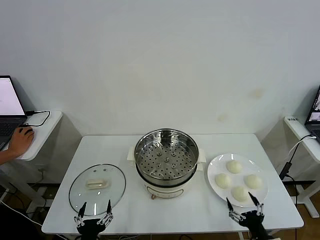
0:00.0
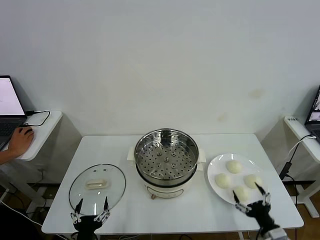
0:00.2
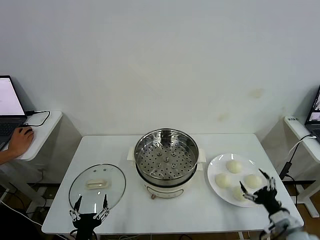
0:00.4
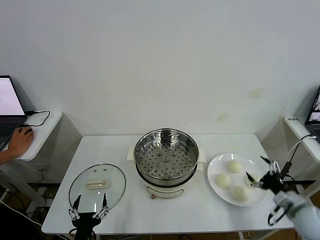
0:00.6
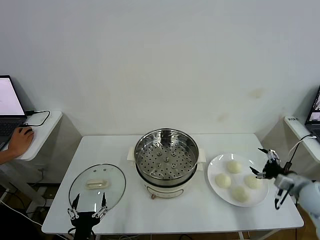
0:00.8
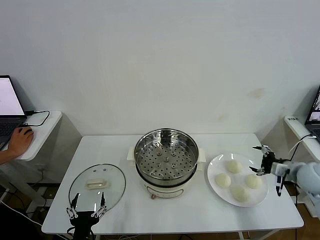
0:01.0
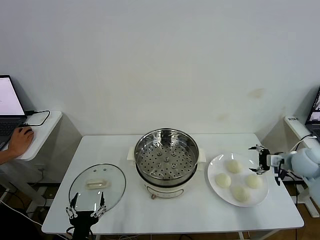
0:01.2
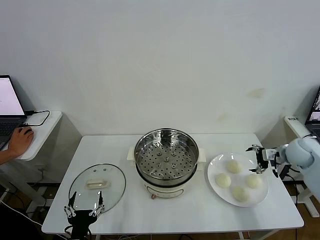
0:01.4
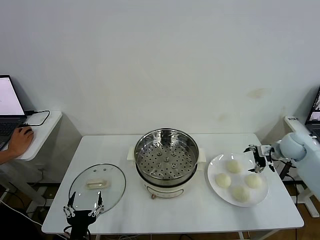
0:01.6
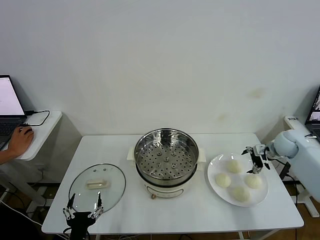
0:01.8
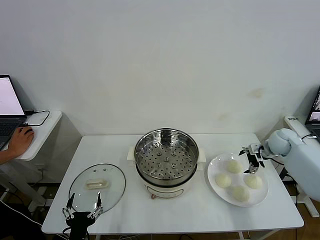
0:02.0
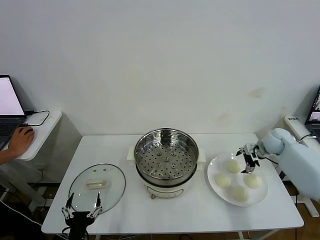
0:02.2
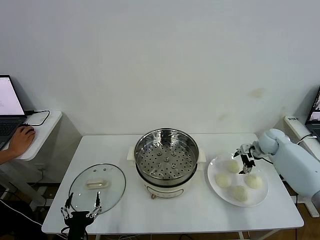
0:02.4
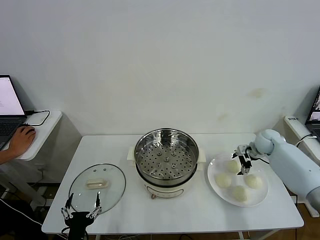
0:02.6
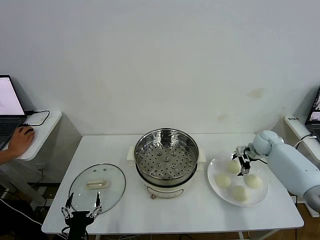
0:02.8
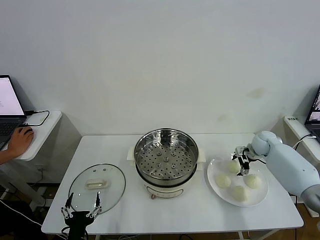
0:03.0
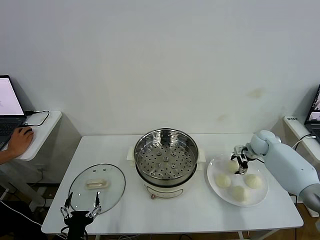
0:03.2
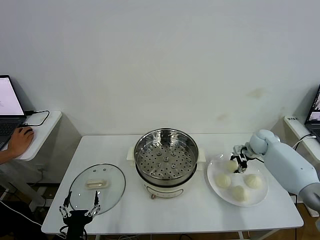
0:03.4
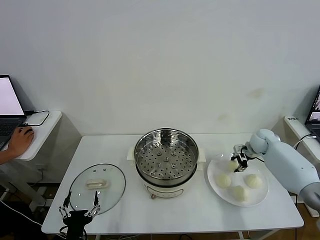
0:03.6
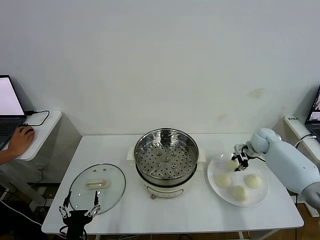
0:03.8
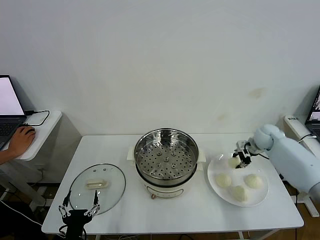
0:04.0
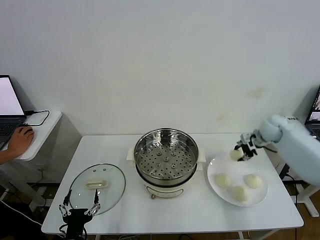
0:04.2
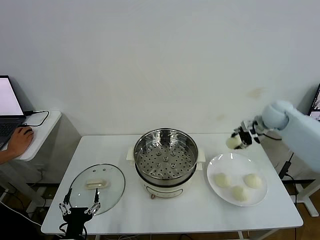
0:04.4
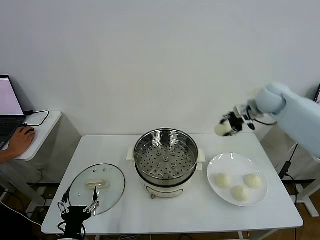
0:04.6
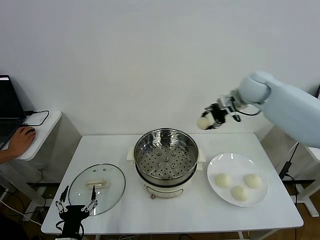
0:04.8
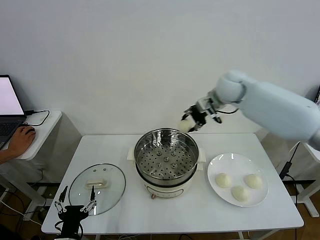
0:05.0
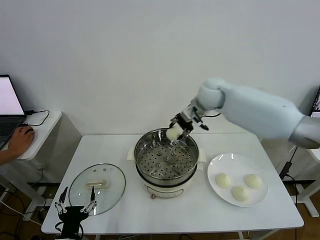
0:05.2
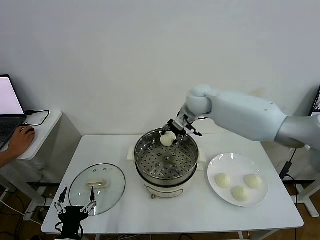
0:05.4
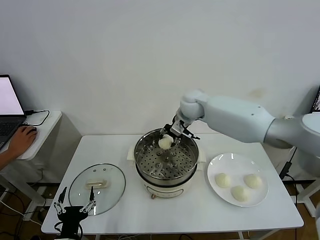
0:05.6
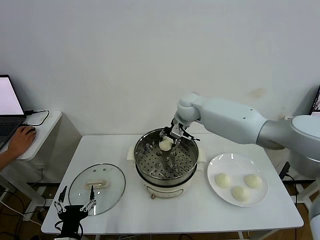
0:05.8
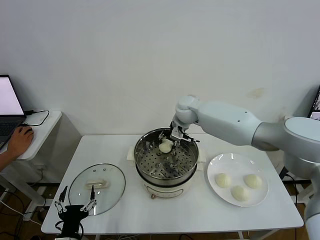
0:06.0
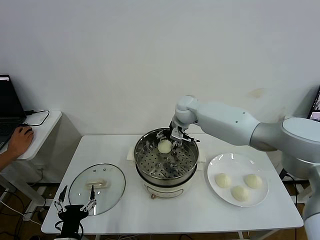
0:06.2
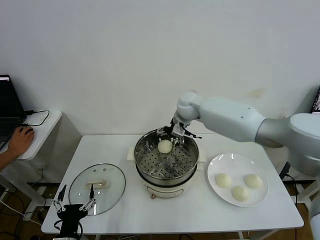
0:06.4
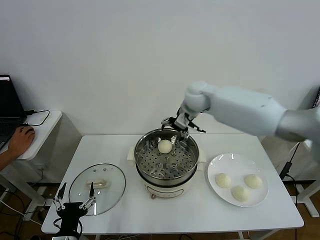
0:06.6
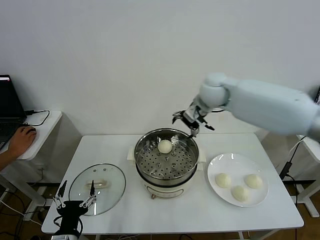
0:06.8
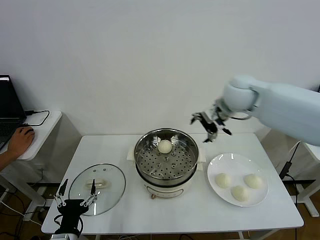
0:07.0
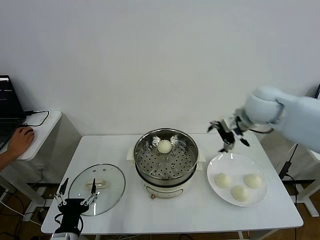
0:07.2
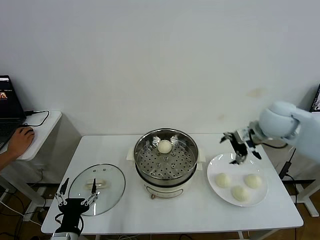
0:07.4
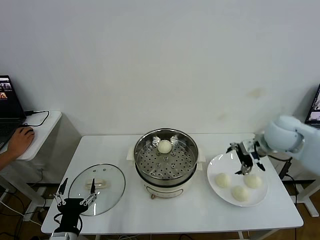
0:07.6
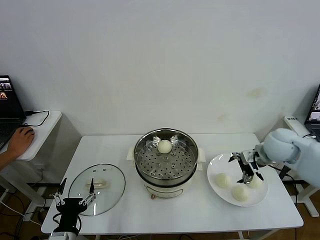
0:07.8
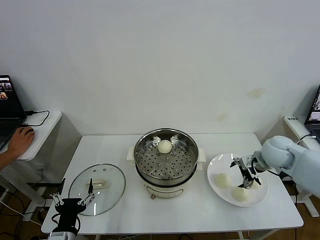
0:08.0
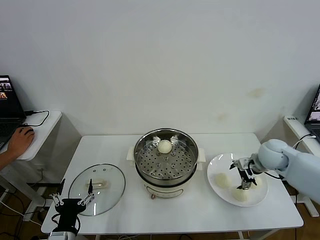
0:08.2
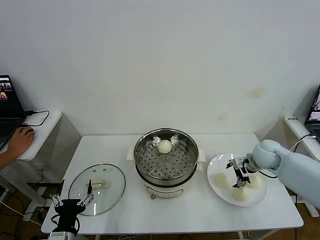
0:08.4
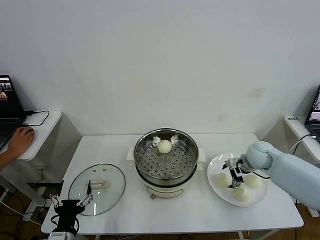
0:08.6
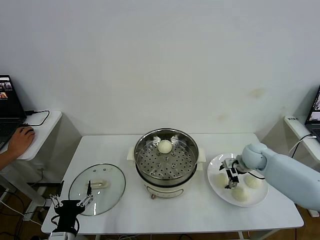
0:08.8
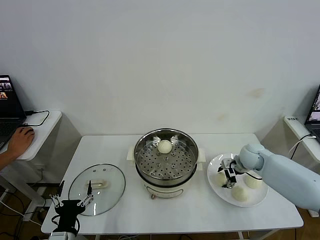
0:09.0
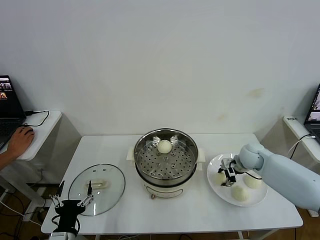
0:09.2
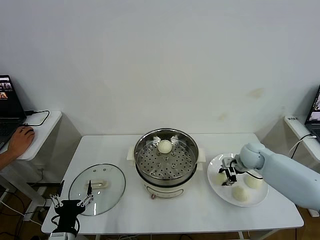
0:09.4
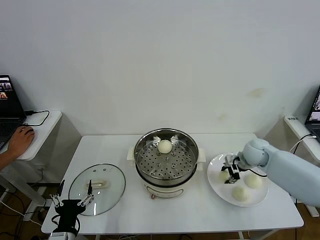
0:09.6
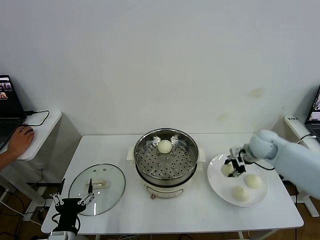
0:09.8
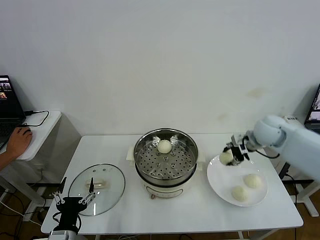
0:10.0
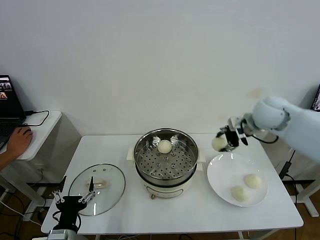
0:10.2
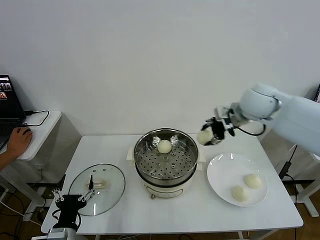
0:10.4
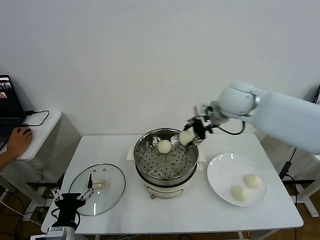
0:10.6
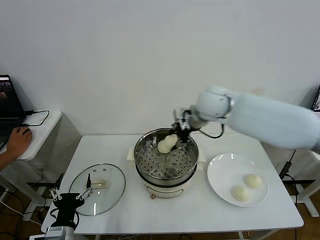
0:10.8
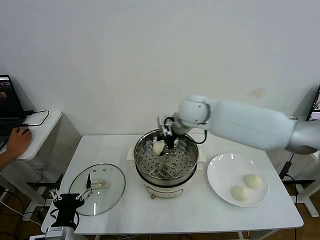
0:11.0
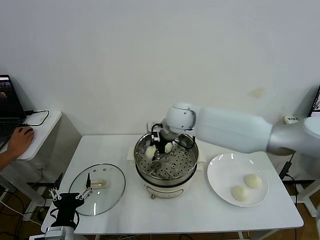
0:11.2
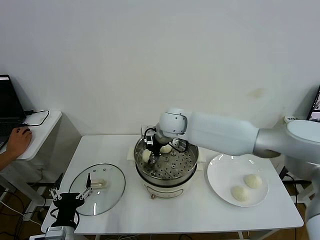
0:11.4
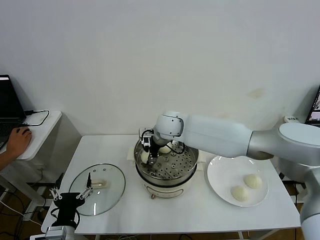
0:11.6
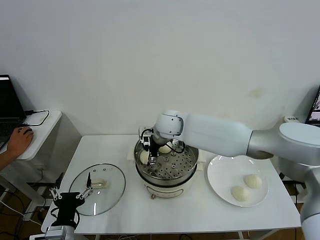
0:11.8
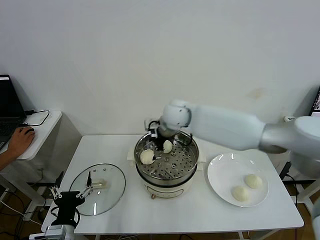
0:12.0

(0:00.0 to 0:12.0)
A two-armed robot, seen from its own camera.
Step, 0:00.0 - 0:03.4: Grasp the baozi in the plate with right gripper.
Step, 0:03.6 - 0:06.4: Place the baozi on the steamer with right gripper.
Step, 0:06.6 - 0:09.2: Grasp the baozi in the plate with right gripper.
Step, 0:09.4 - 0:11.8: Place the baozi on the steamer with right gripper.
0:01.6 - 0:03.0: The right gripper goes approximately 10 cm downward and forward.
0:03.0 - 0:04.4: The right gripper is displaced upward by some 20 cm, and closes up.
0:04.4 - 0:06.0: The right gripper is displaced to the left by some 30 cm.
0:06.0 - 0:07.6: The right gripper shifts about 30 cm to the right and backward, and opens up.
0:07.6 - 0:09.0: The right gripper goes some 15 cm downward, and closes up.
0:09.0 - 0:10.4: The right gripper heads upward, covering roughly 25 cm, and closes.
0:10.4 - 0:12.0: The right gripper moves to the left, some 20 cm, and opens up.

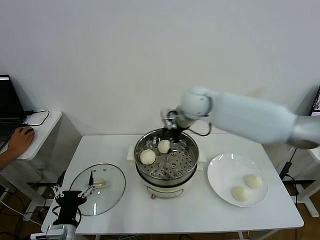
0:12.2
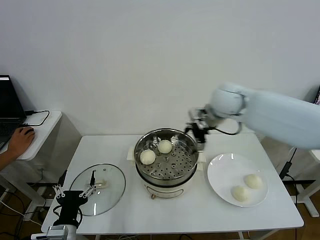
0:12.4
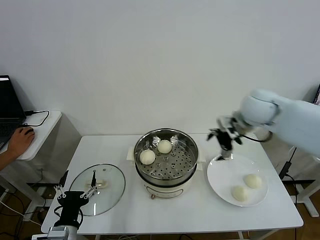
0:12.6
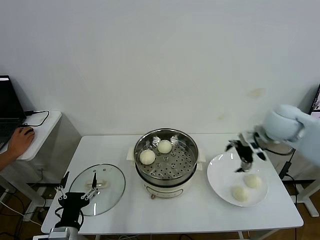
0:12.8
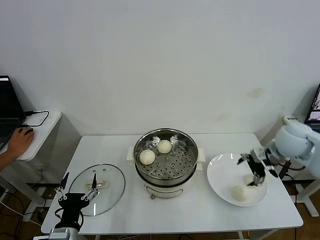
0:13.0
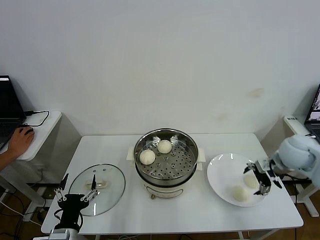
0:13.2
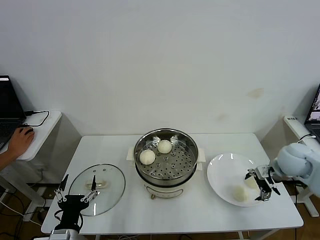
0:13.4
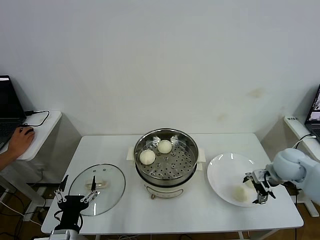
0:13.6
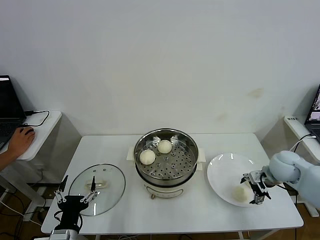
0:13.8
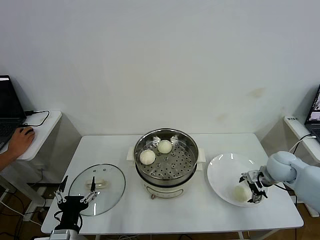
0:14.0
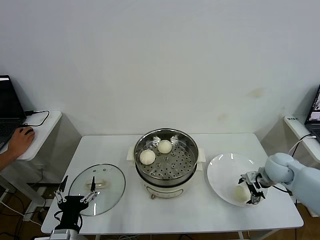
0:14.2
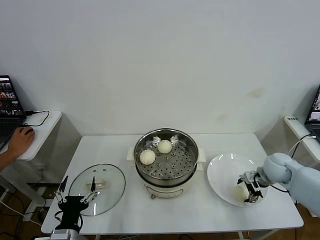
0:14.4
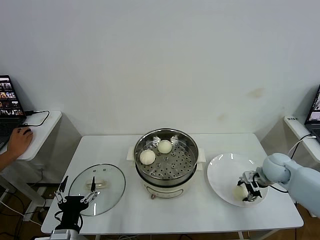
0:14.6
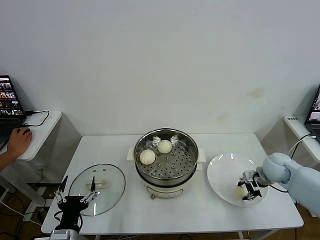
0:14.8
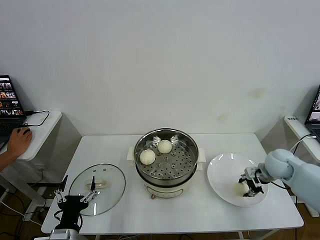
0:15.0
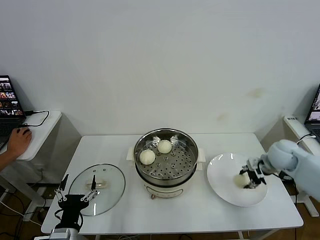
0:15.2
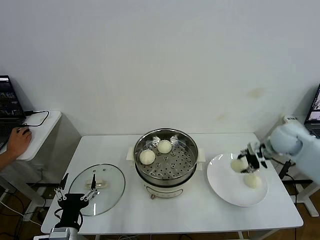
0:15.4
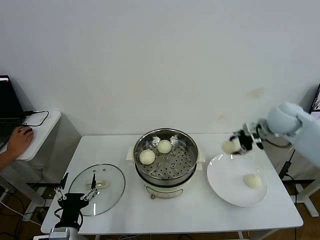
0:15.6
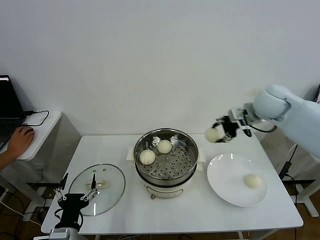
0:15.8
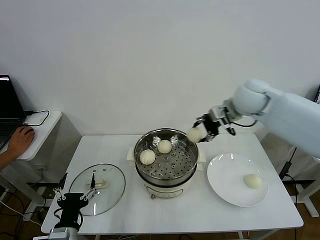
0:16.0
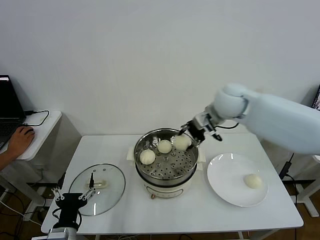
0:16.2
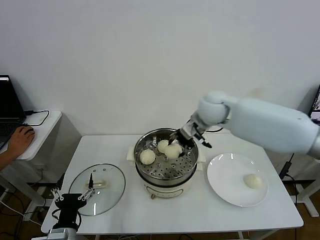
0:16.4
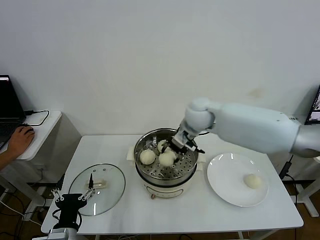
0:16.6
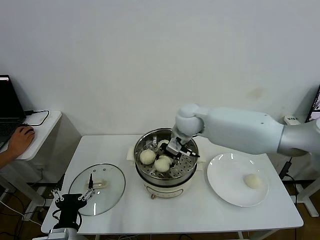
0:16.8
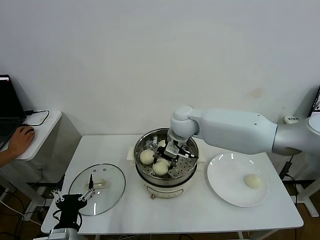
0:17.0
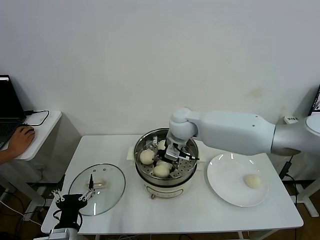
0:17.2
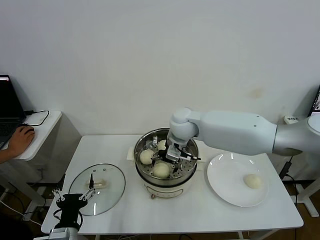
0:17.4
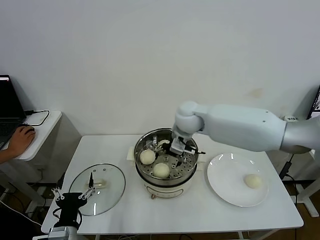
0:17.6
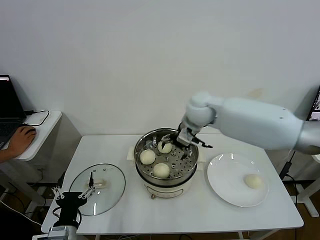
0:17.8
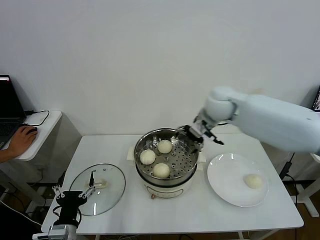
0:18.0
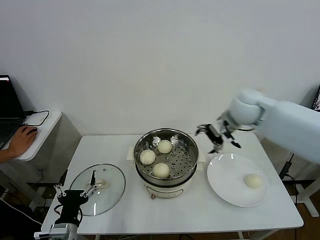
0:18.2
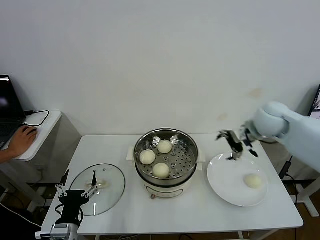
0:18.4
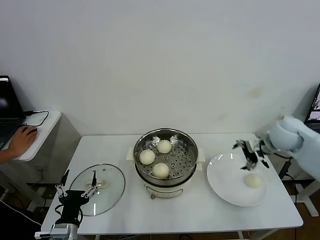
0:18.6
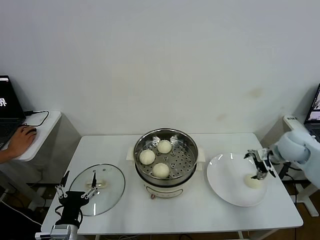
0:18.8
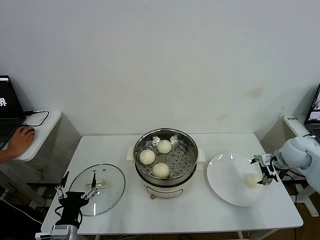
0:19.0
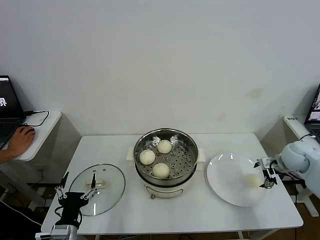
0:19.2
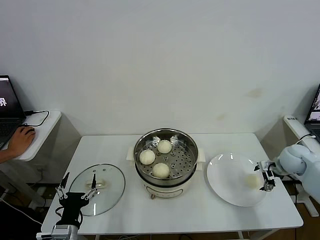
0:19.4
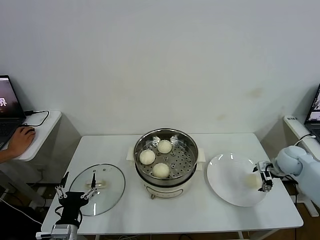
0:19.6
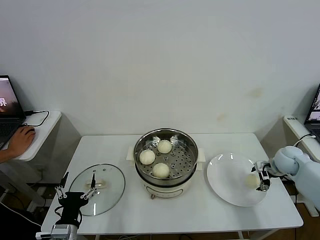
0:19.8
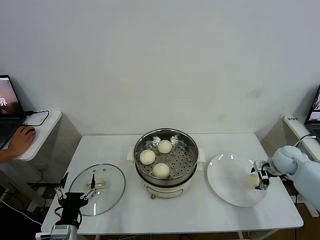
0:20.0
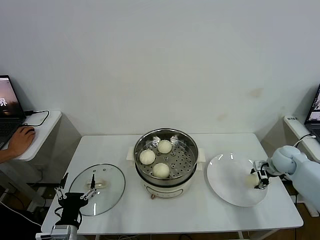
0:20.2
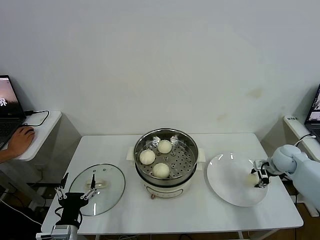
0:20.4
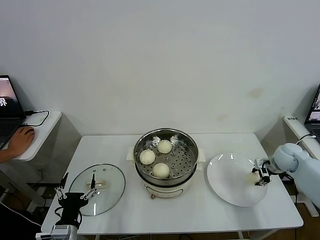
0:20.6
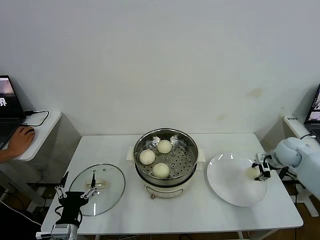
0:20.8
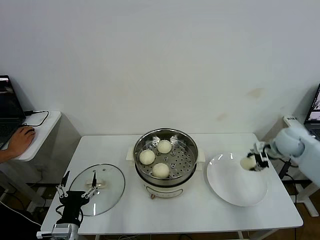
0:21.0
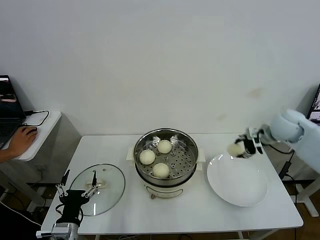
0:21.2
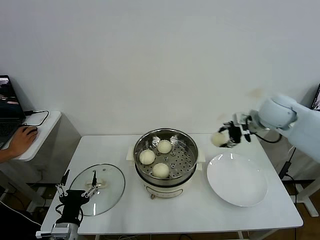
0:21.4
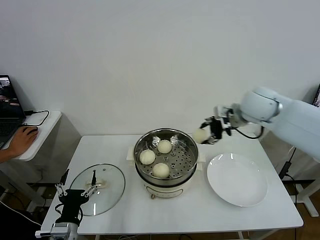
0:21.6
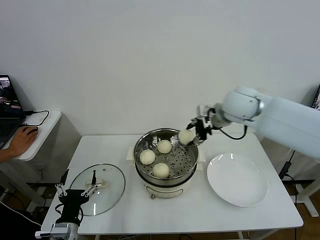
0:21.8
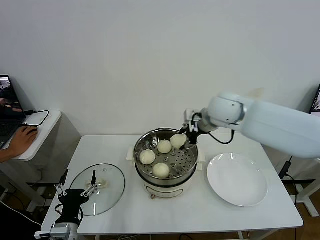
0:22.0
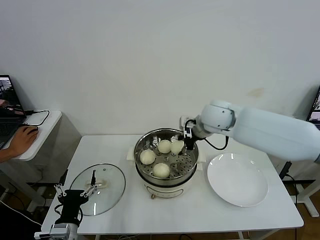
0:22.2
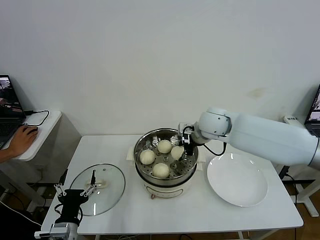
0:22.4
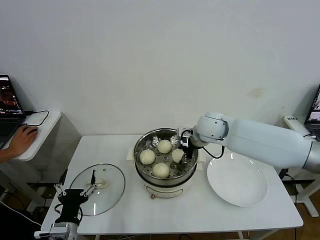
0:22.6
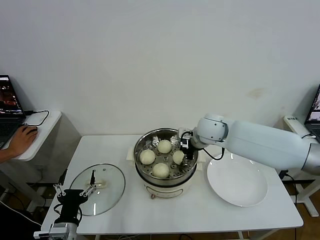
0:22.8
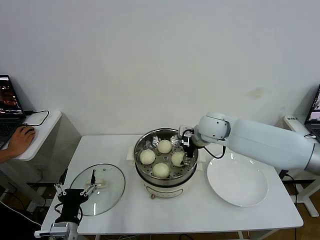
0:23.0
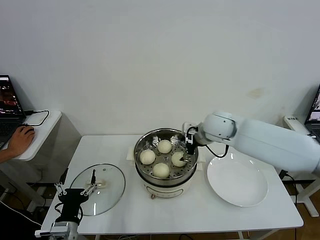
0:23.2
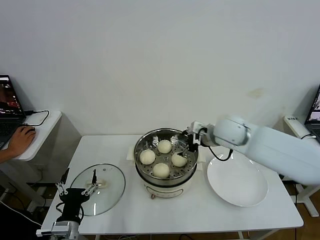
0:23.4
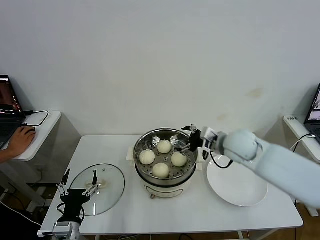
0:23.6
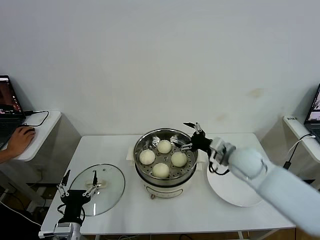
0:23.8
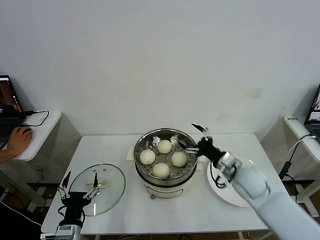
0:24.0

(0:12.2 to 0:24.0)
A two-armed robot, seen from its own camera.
Step, 0:12.2 - 0:14.6: Grasp the baozi in the plate with right gripper.
Step, 0:14.8 - 0:17.4: Place the baozi on the steamer with right gripper.
Step, 0:17.6 - 0:20.4: Grasp the baozi in the plate with right gripper.
Step, 0:20.6 - 0:23.0: Place the baozi on the steamer with right gripper.
0:12.2 - 0:13.6: The right gripper is displaced to the right, downward and backward by about 35 cm.
0:13.6 - 0:15.2: The right gripper closes up.
0:15.2 - 0:16.6: The right gripper goes roughly 30 cm to the left.
0:16.6 - 0:18.2: The right gripper shifts some 15 cm to the right, and opens up.
0:18.2 - 0:19.6: The right gripper moves to the right and downward, about 30 cm.
0:19.6 - 0:21.0: The right gripper heads upward, covering some 10 cm, and closes up.
0:21.0 - 0:22.6: The right gripper shifts some 25 cm to the left.
0:22.6 - 0:24.0: The right gripper moves backward, to the right and downward, some 20 cm, and opens its fingers.
